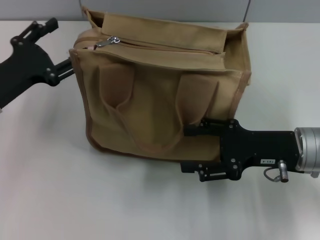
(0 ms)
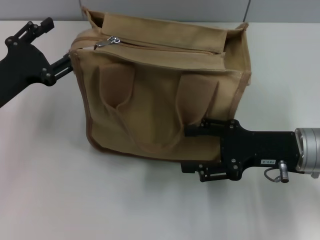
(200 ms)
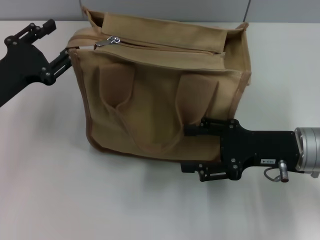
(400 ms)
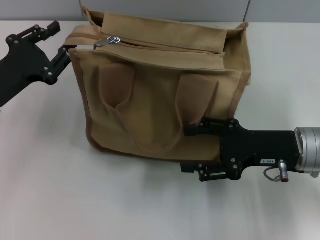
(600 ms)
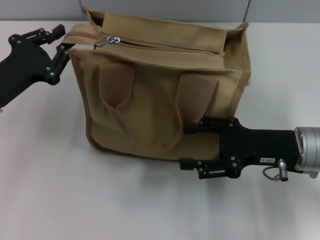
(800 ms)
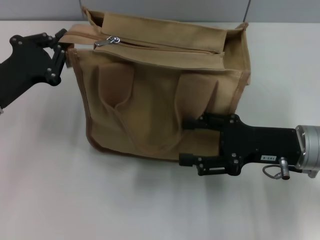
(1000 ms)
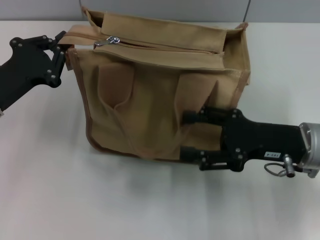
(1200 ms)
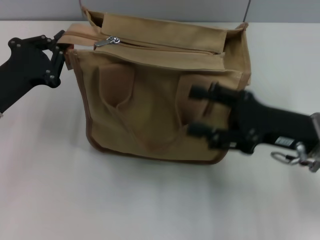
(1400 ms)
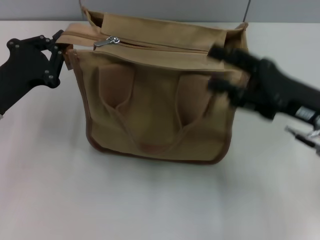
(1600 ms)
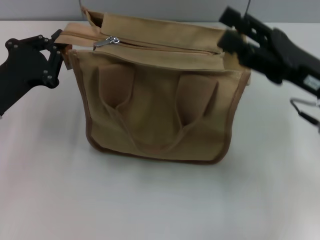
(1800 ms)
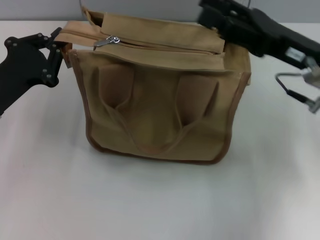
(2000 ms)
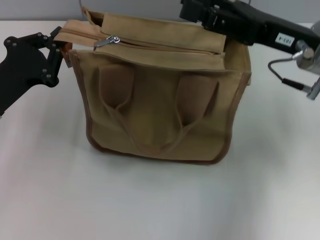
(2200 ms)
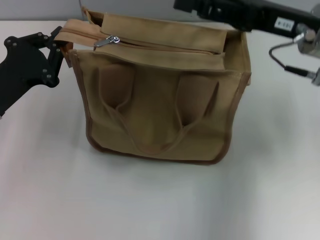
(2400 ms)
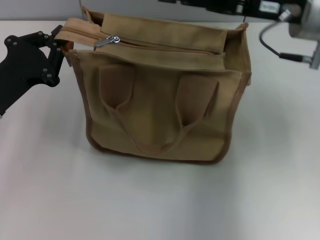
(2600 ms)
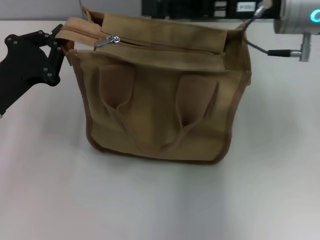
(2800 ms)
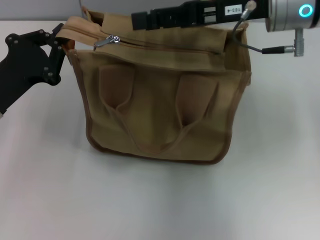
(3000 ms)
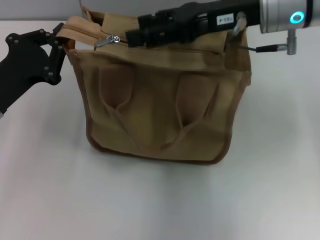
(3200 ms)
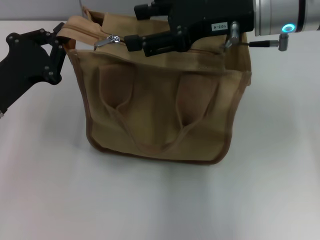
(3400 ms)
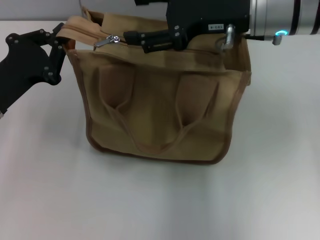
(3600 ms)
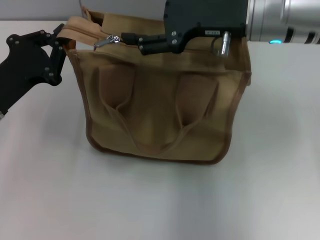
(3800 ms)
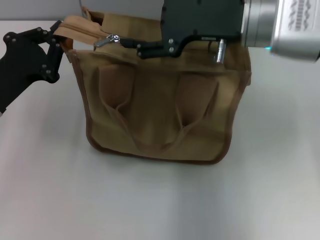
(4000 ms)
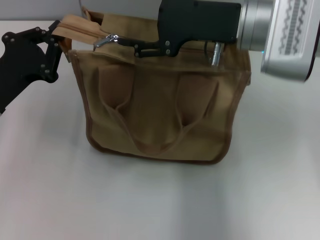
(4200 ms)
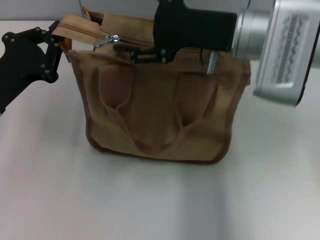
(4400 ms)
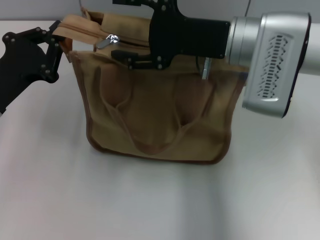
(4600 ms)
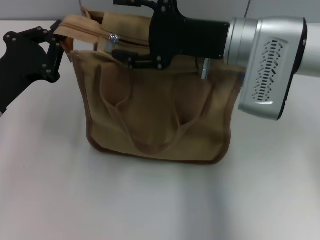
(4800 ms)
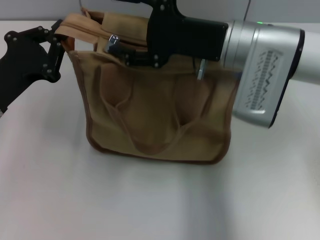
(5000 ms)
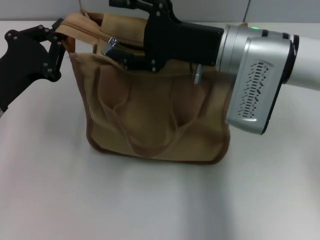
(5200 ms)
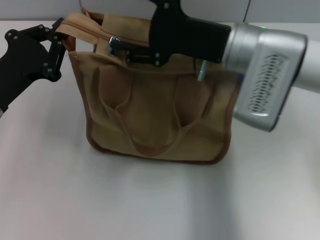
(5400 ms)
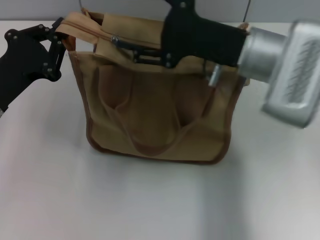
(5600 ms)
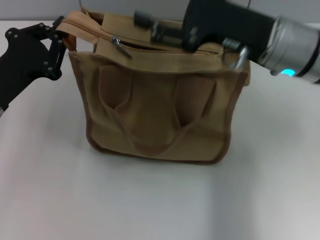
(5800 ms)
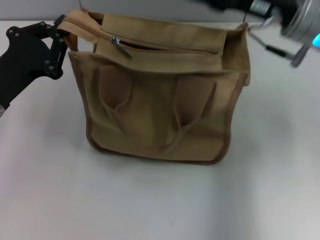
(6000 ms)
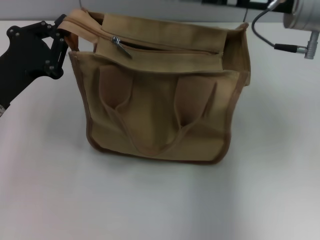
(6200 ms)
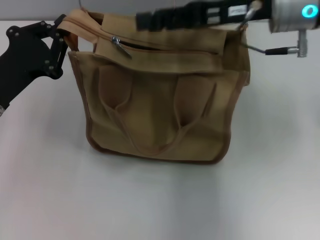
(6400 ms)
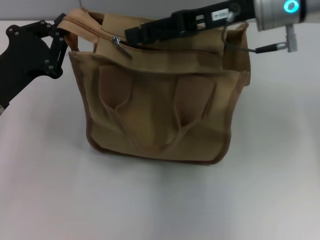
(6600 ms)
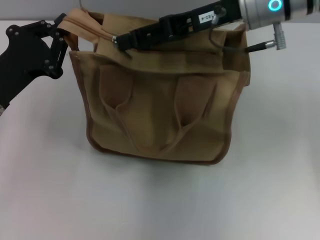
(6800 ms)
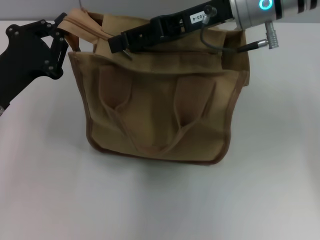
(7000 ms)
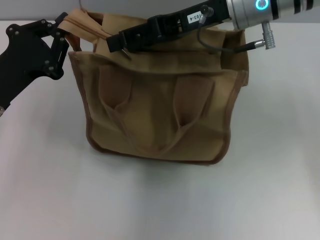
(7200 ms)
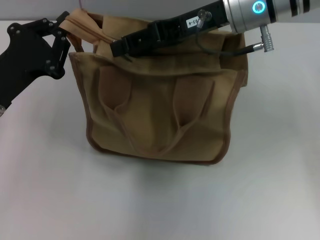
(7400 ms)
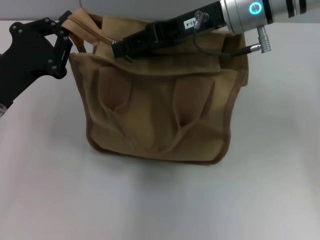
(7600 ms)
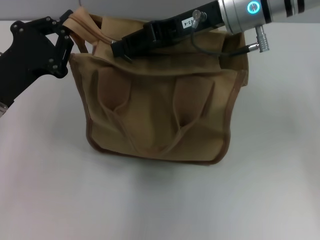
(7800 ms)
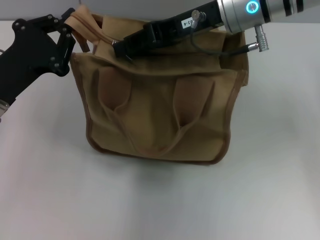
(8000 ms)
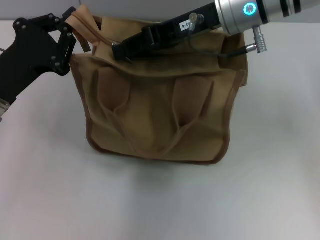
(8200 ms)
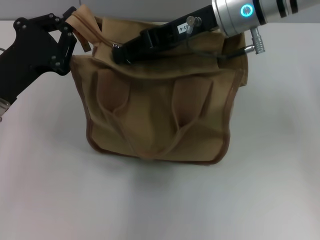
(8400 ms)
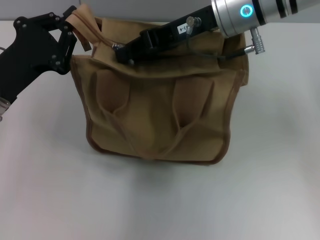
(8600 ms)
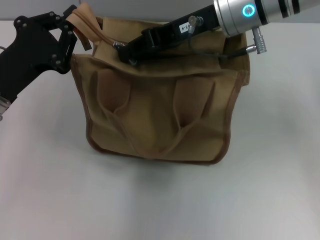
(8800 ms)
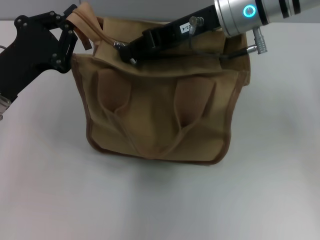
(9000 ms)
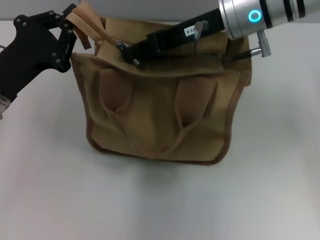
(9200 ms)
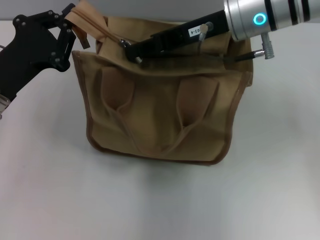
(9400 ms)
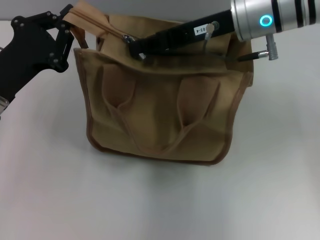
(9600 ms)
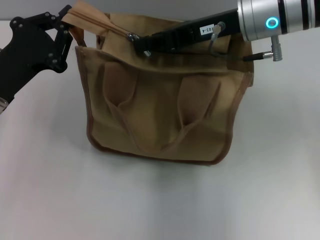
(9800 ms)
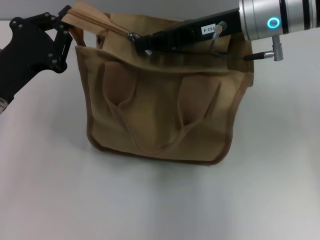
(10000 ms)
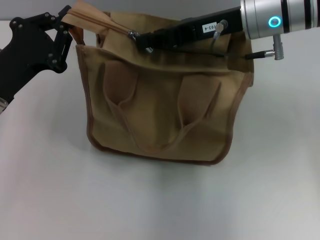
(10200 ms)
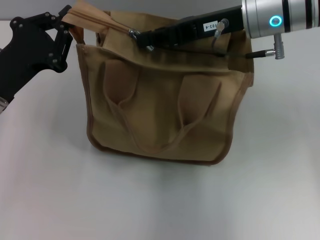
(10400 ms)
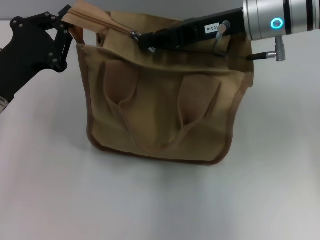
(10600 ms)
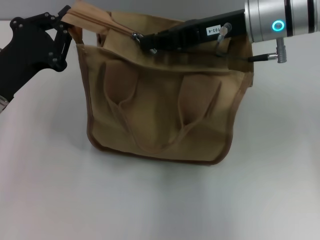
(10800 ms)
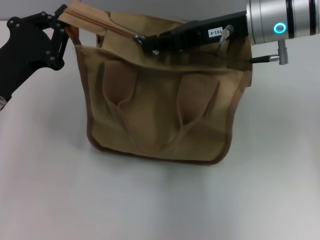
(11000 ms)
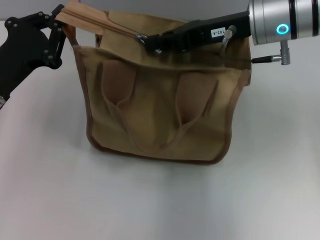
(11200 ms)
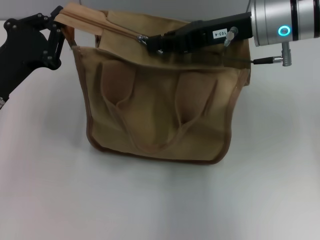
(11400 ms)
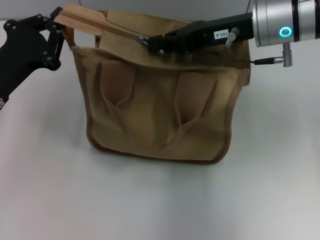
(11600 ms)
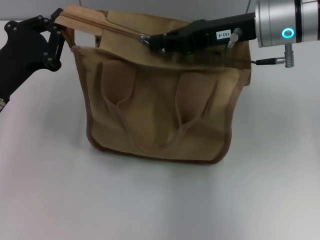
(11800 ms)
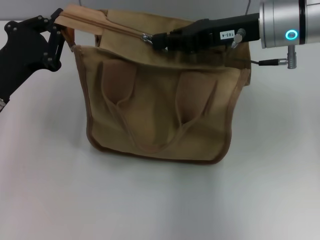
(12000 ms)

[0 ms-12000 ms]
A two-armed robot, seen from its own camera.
0 ms to 1600 ms: The left gripper closes up.
1600 ms to 3000 ms: The right gripper moves forward, upward and to the left, roughly 15 cm.
3000 ms to 4400 ms: The right gripper changes place by about 5 cm.
4400 ms to 6000 ms: The right gripper goes about 5 cm to the right.
6000 ms to 7600 ms: The right gripper is displaced to the left by some 5 cm.
7600 ms to 9000 ms: The right gripper closes up.
9000 ms to 12000 ms: The grippers make only small movements.

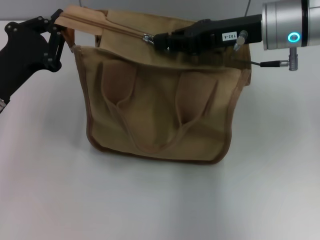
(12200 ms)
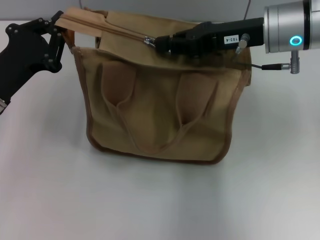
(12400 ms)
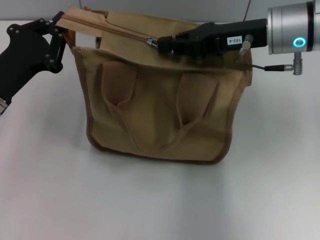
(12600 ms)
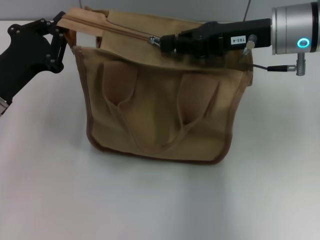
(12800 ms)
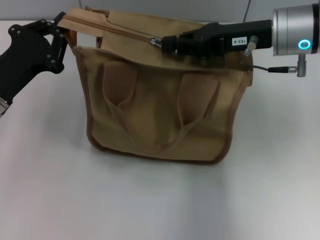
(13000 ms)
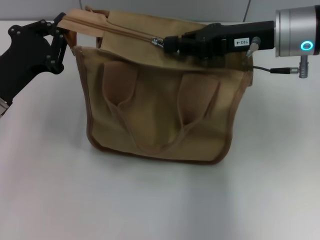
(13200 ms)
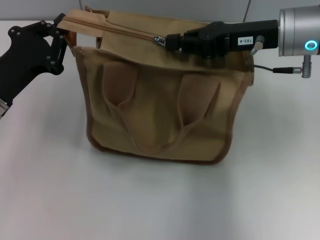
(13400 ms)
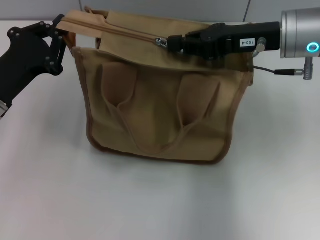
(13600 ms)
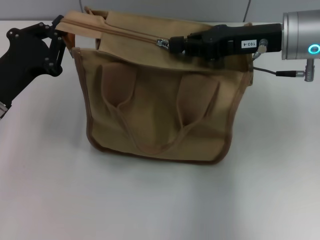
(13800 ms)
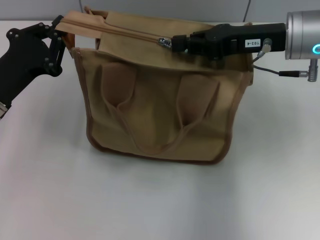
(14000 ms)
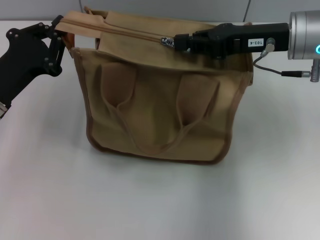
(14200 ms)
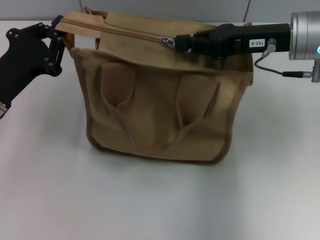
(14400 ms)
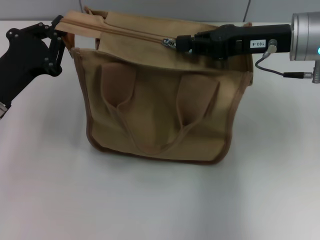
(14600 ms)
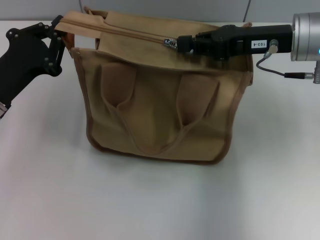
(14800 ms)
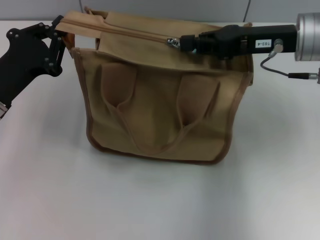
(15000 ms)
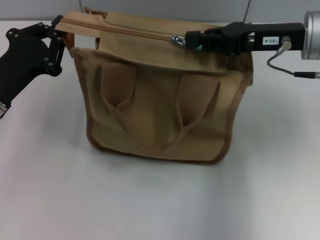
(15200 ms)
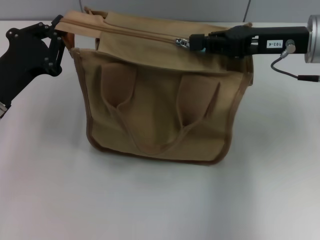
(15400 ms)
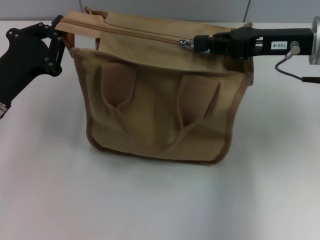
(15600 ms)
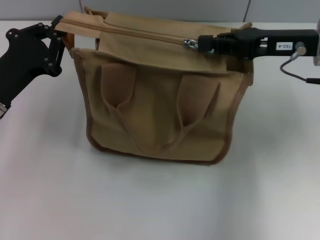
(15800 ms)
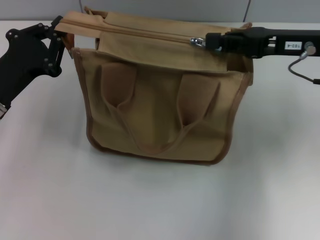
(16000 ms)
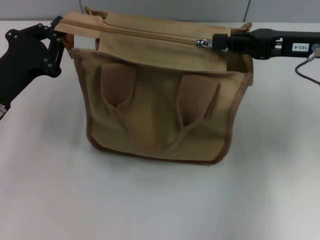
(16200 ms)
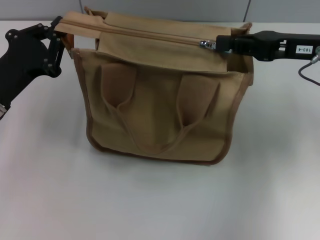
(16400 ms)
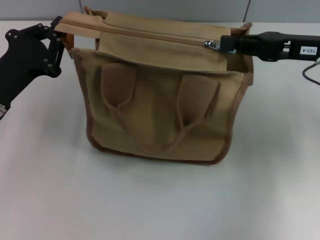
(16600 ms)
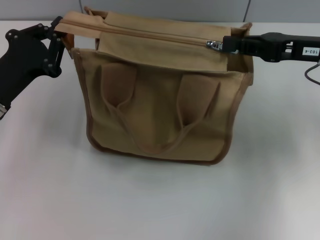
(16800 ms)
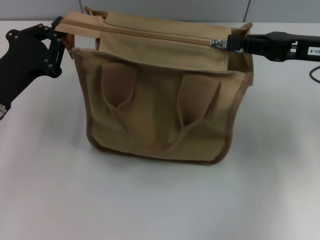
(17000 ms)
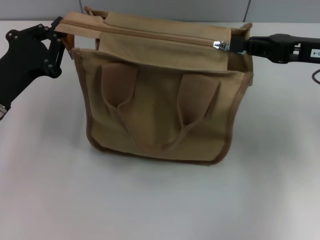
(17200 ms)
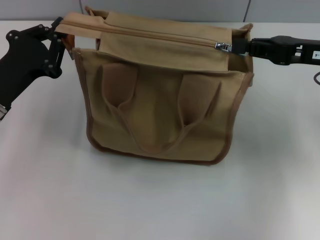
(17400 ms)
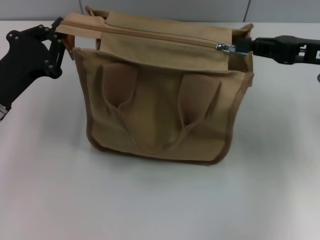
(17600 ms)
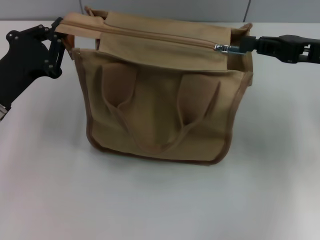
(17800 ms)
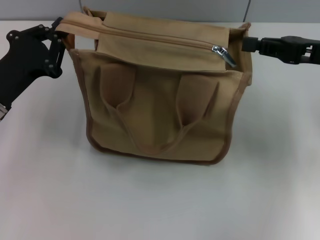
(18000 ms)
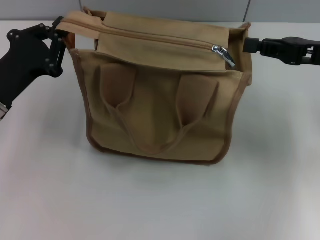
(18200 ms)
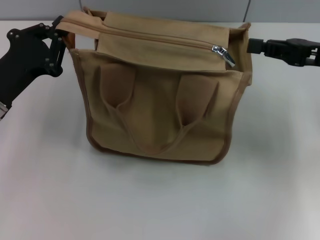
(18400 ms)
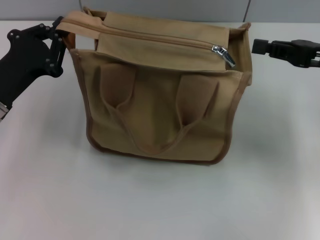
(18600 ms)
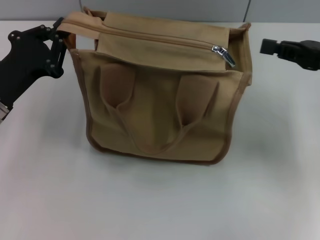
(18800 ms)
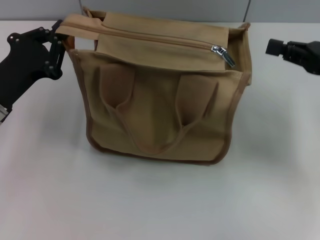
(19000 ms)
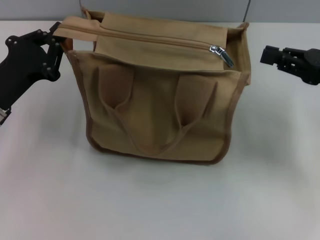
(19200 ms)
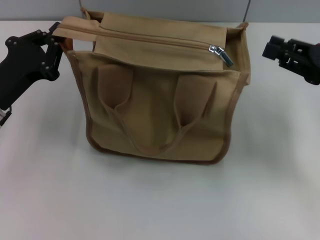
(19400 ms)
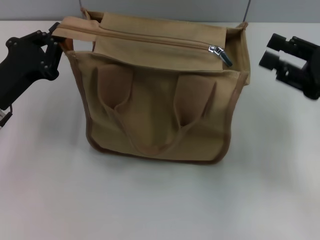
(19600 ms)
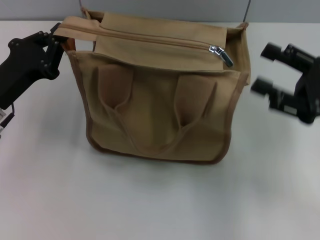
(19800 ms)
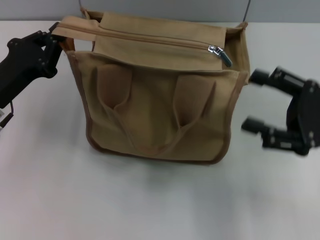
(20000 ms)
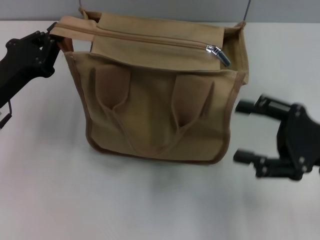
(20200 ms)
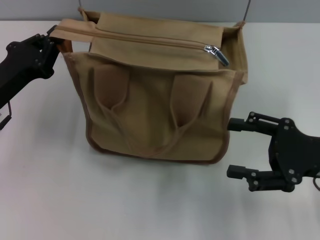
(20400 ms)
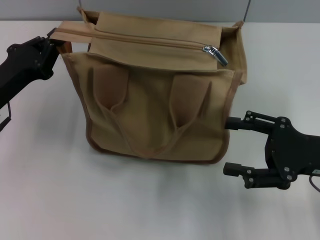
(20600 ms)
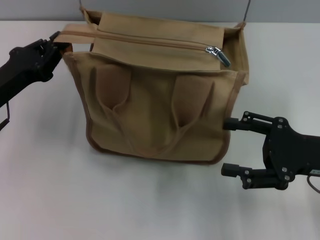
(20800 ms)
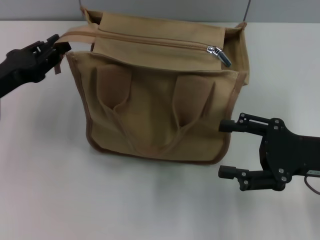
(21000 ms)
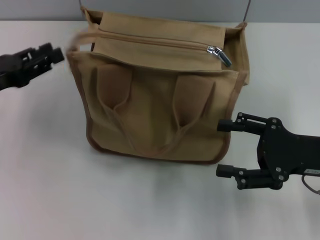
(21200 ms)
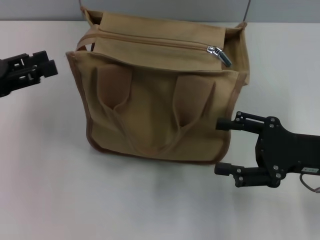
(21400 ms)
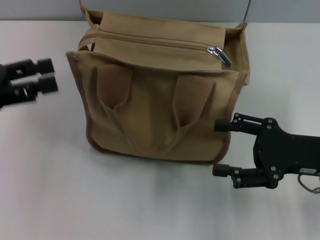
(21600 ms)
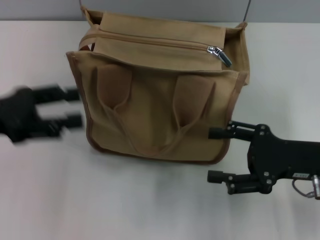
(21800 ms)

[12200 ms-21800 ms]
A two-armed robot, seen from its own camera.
Step, 12200 ms to 17800 ms: Pull up the zipper with your right hand.
Step, 18000 ms to 21000 ms: Grab the zipper with your left hand.
12200 ms to 15400 ms: The grippers move only a little.
15400 ms to 17000 ms: The right gripper moves some 5 cm.
17000 ms to 18600 ms: The grippers stay close to where they were, moving slightly.
18600 ms to 20200 ms: The right gripper heads backward and downward, covering some 10 cm, and opens its fingers.
20200 ms to 21800 ms: The left gripper goes roughly 5 cm upward, and opens.

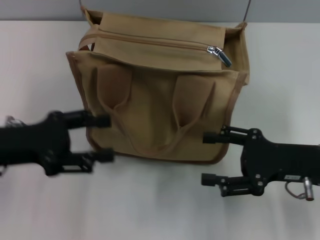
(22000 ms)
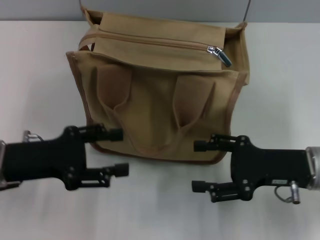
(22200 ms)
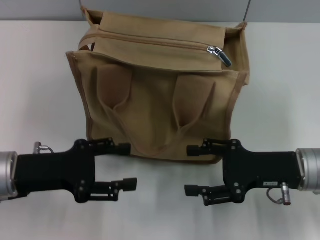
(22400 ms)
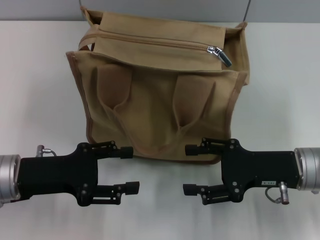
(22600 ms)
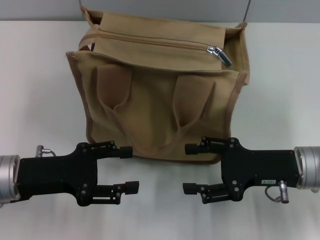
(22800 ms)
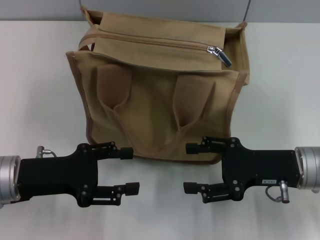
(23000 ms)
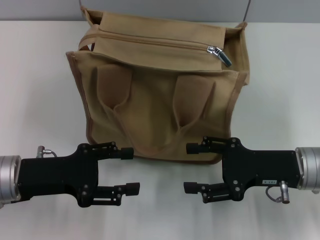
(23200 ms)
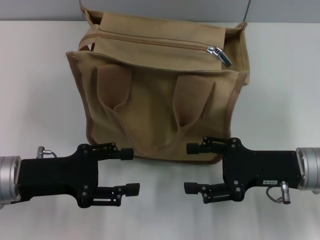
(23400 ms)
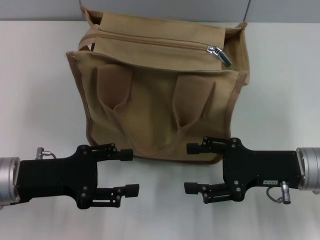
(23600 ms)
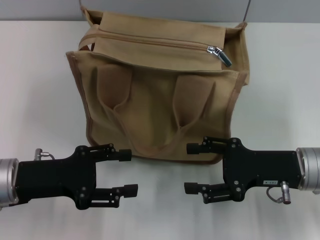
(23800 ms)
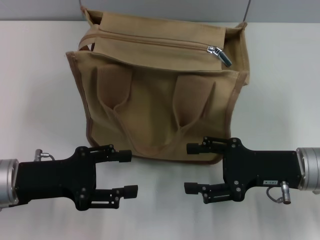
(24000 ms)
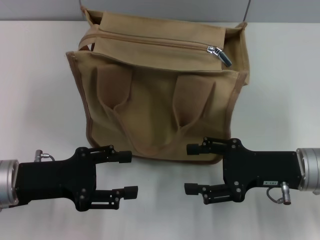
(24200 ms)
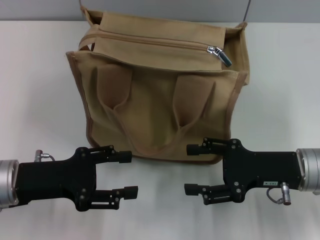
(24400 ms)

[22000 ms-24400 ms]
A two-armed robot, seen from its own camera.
22000 ms to 23200 ms: The left gripper ends up some 5 cm from where it was.
23200 ms to 24400 ms: The two grippers keep their place.
